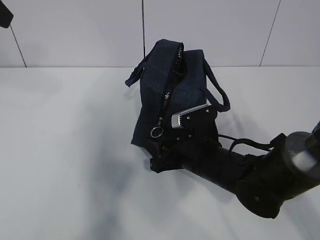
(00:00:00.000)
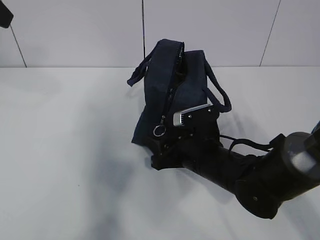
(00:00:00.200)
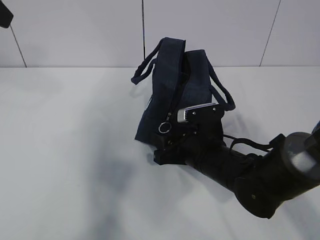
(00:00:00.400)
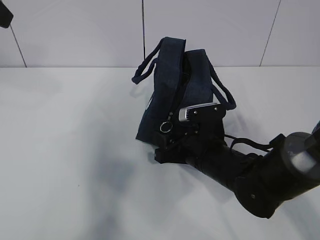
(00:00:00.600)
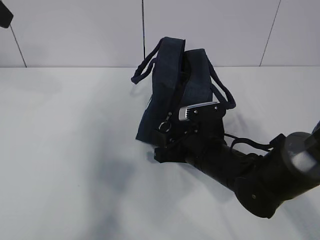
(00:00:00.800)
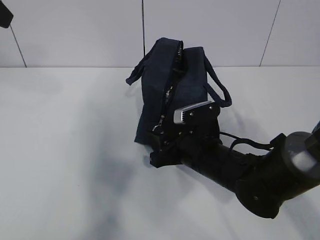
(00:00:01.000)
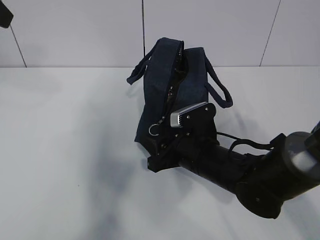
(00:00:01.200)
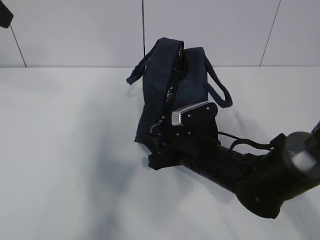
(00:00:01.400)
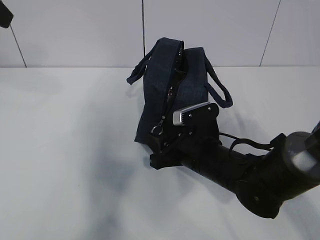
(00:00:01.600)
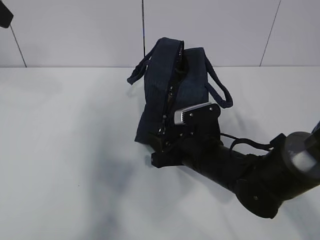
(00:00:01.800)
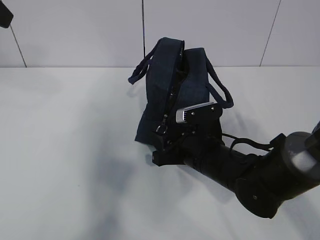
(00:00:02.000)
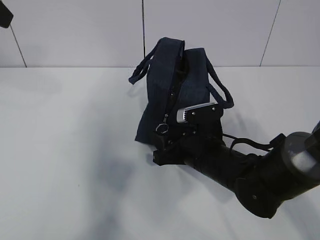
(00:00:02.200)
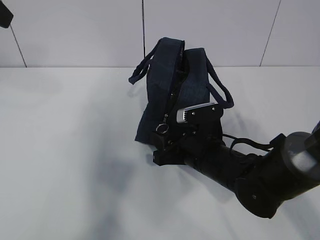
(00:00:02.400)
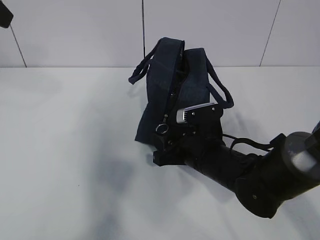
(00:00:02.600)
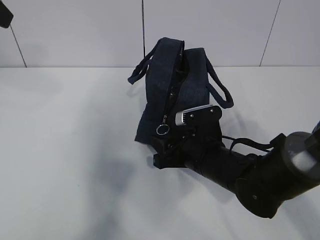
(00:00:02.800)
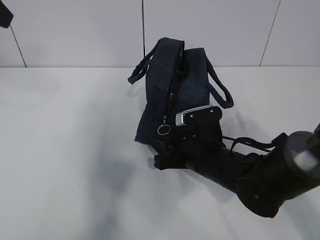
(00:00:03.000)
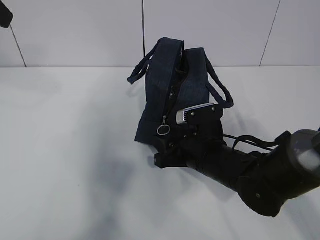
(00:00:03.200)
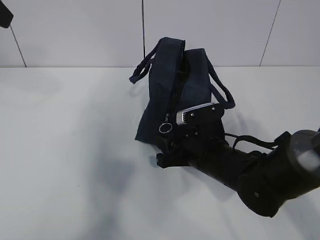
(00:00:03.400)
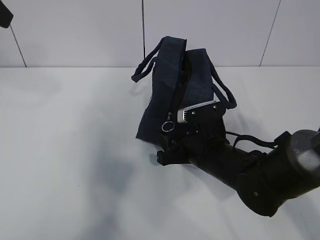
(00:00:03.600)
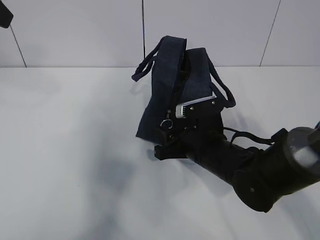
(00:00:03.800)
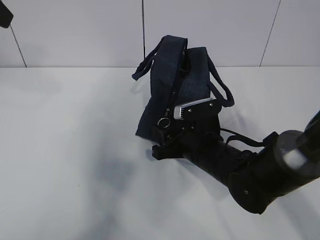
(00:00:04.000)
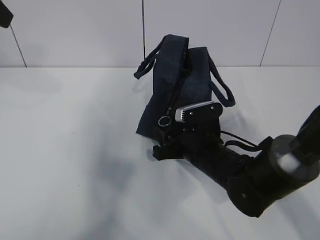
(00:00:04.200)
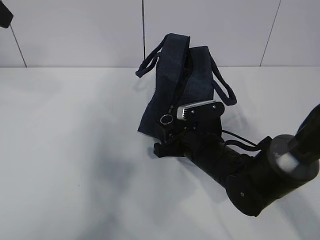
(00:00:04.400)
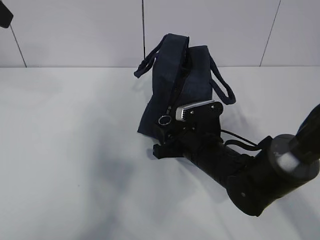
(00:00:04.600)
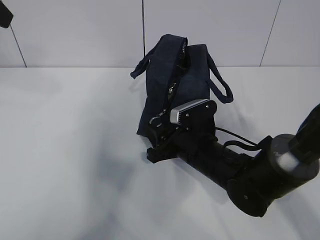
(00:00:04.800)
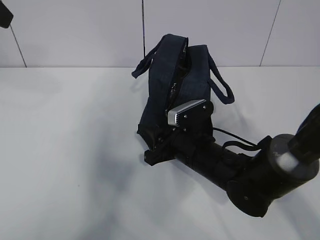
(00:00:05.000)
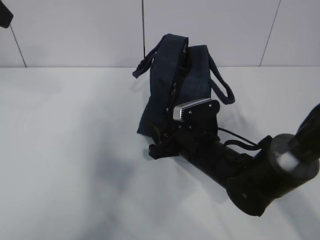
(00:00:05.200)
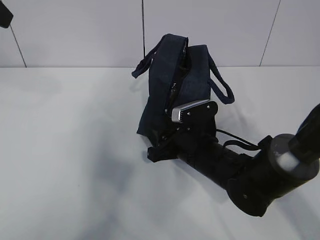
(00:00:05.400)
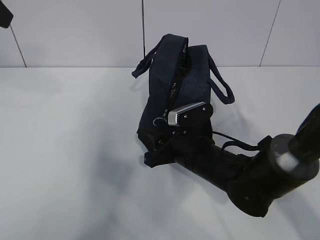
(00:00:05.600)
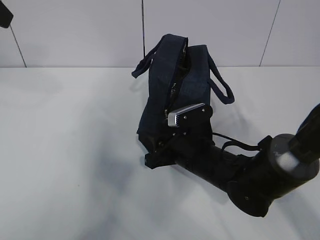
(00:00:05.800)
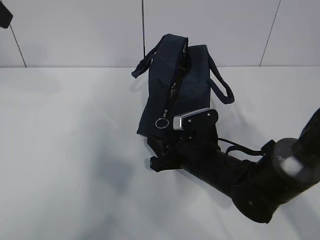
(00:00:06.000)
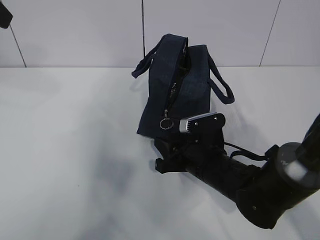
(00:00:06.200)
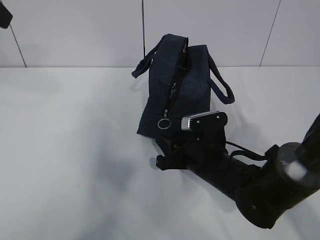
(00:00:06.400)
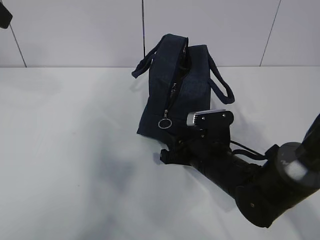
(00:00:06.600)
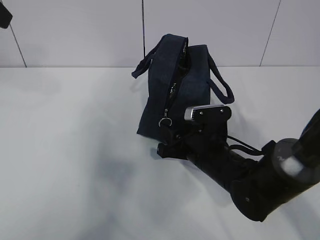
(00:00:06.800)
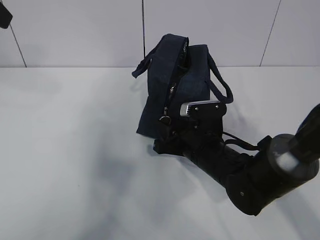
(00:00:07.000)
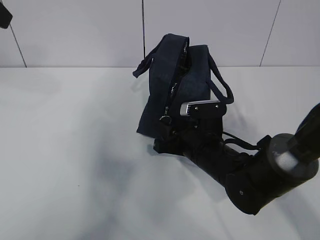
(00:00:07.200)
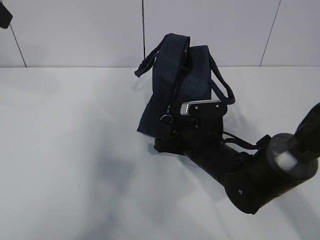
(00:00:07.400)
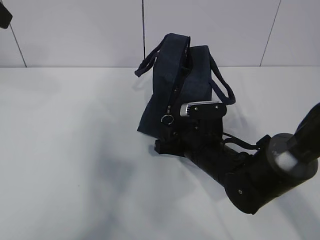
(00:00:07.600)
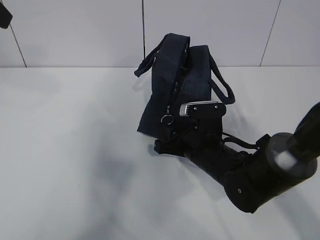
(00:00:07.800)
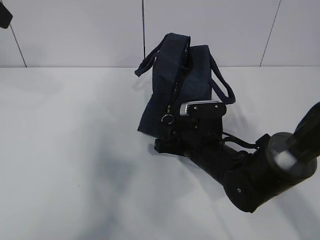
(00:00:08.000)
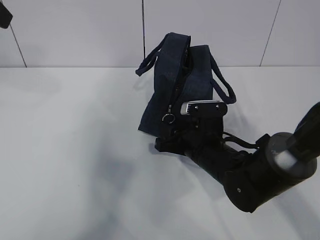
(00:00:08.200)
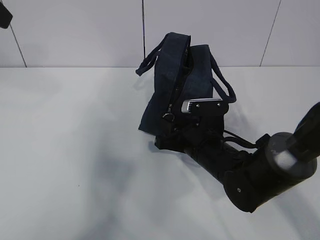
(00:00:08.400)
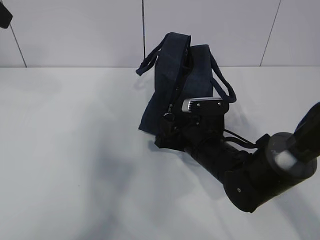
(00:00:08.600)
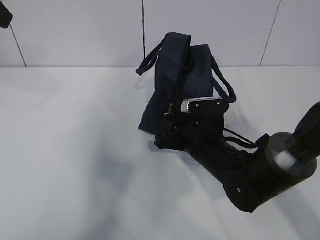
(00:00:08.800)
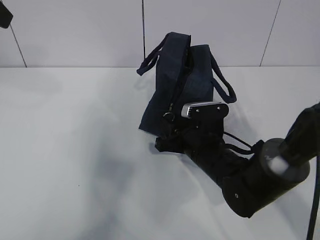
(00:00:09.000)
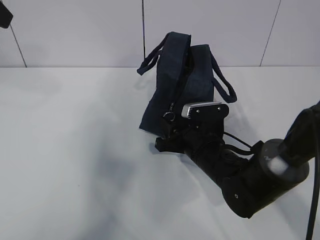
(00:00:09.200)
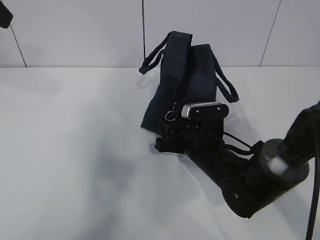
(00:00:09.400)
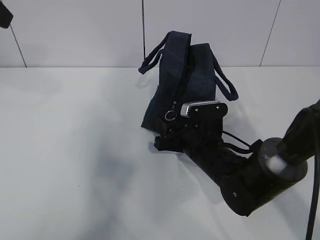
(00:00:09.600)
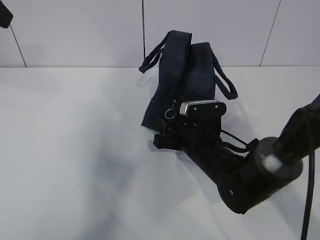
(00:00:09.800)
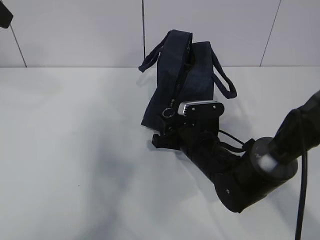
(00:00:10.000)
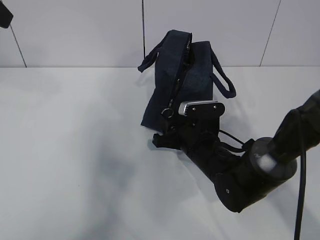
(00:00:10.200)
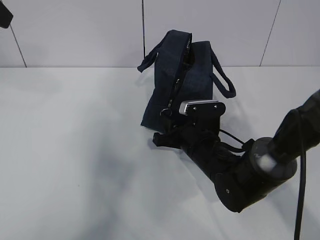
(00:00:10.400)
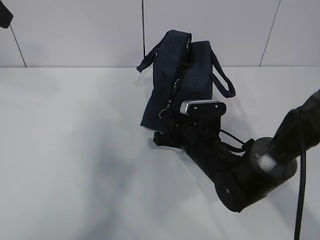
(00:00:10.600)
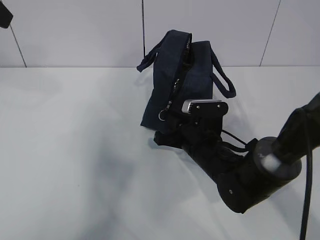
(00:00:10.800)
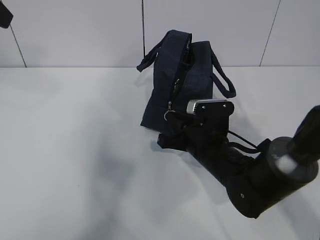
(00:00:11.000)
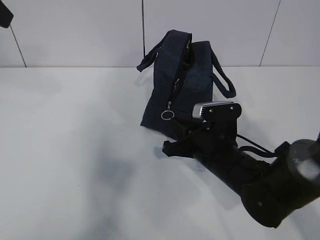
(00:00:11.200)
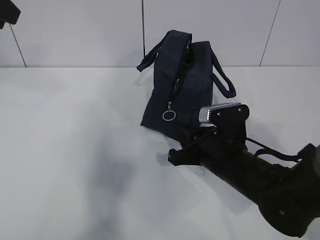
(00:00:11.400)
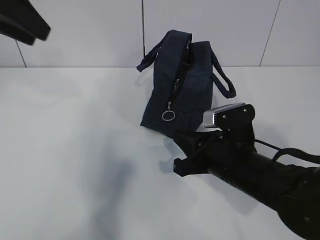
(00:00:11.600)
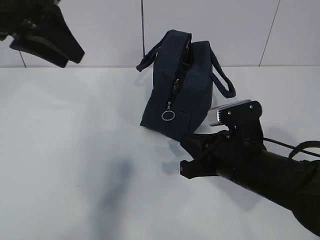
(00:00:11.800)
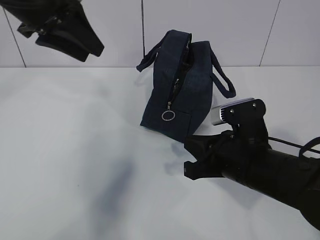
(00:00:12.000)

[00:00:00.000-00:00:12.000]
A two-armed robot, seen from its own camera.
00:00:00.000 to 00:00:10.400: The grippers move only a little.
00:00:10.400 to 00:00:12.000: The right gripper moves backward and upward, roughly 10 cm, and closes up, while the left gripper goes some 10 cm to the right, downward and forward.

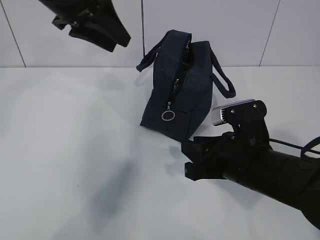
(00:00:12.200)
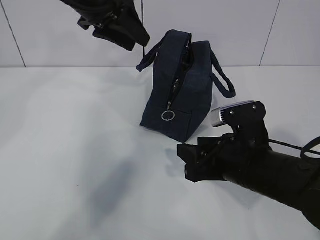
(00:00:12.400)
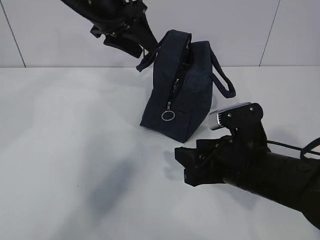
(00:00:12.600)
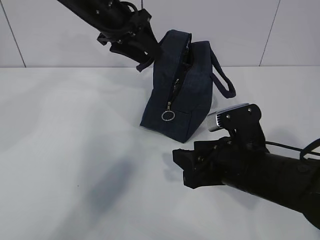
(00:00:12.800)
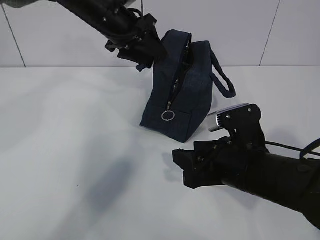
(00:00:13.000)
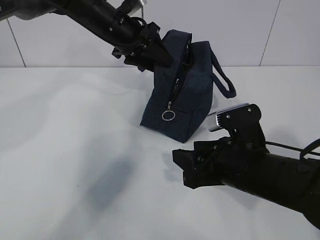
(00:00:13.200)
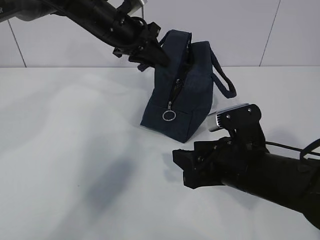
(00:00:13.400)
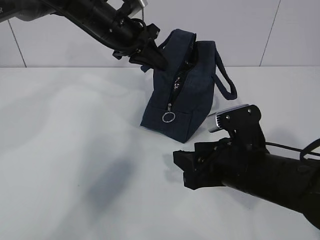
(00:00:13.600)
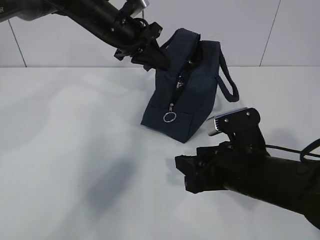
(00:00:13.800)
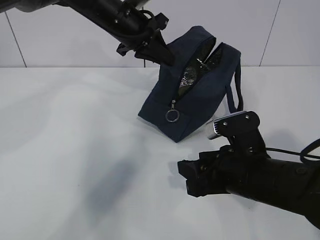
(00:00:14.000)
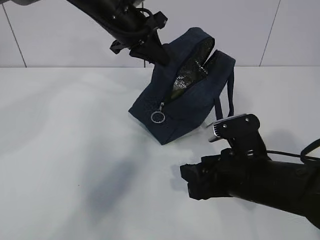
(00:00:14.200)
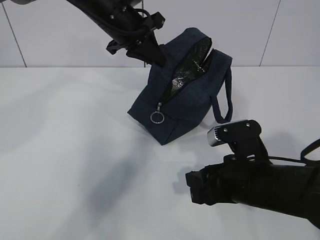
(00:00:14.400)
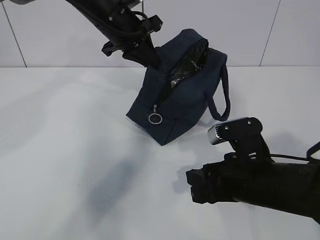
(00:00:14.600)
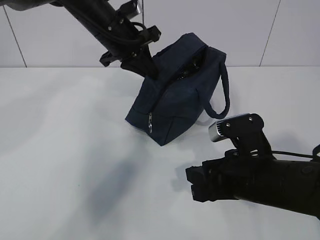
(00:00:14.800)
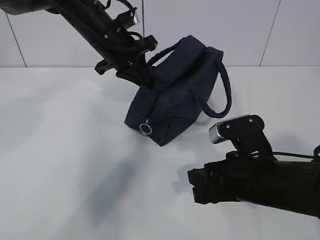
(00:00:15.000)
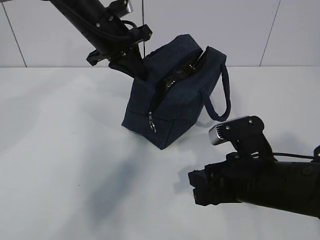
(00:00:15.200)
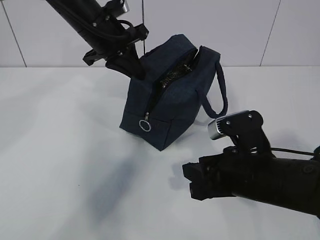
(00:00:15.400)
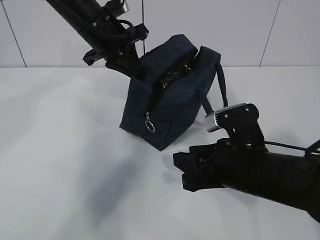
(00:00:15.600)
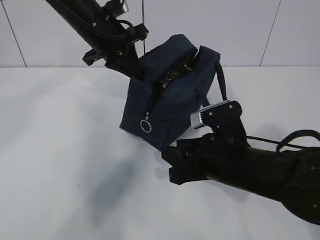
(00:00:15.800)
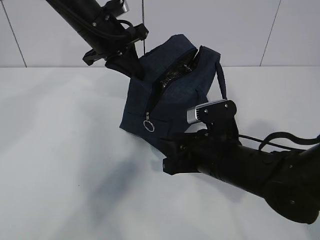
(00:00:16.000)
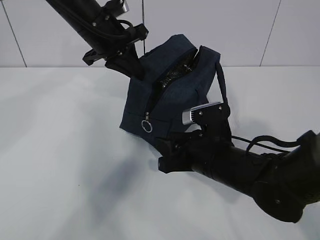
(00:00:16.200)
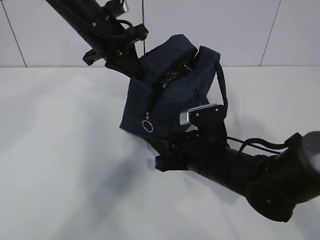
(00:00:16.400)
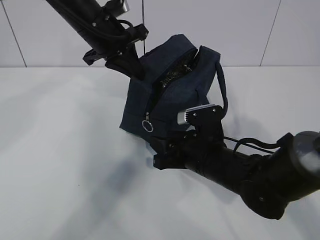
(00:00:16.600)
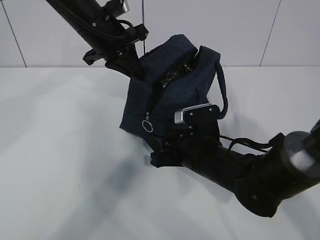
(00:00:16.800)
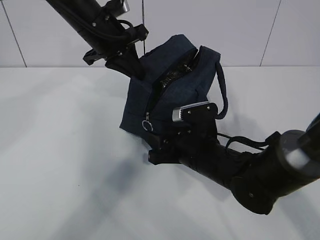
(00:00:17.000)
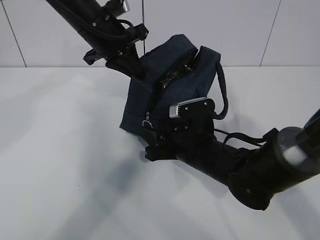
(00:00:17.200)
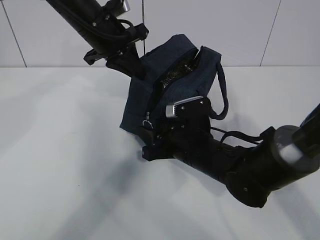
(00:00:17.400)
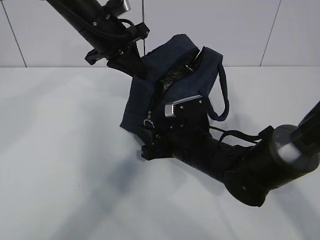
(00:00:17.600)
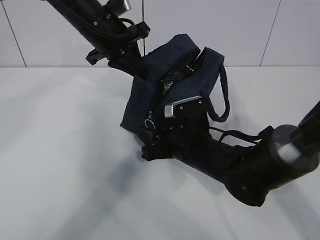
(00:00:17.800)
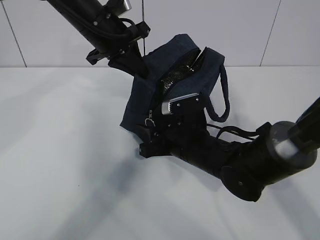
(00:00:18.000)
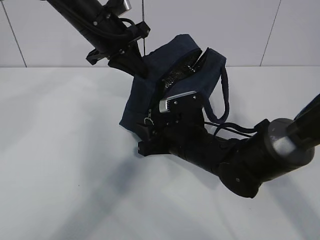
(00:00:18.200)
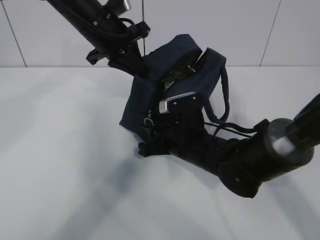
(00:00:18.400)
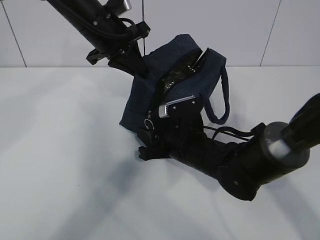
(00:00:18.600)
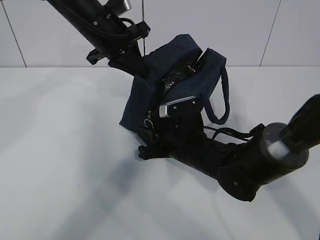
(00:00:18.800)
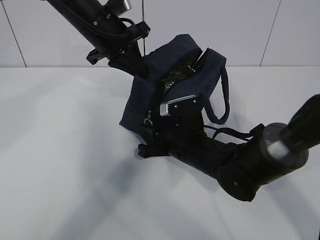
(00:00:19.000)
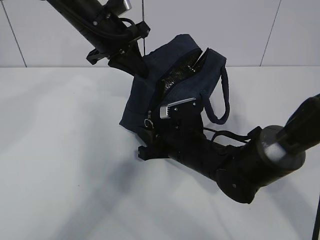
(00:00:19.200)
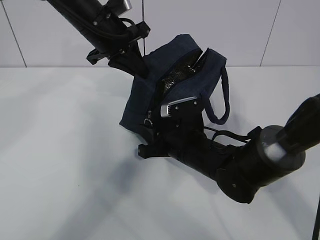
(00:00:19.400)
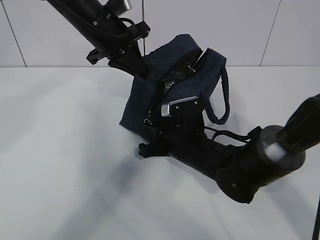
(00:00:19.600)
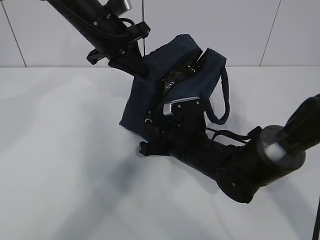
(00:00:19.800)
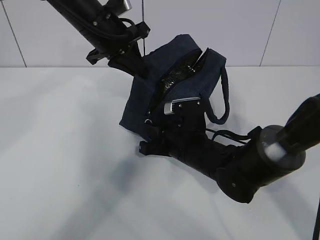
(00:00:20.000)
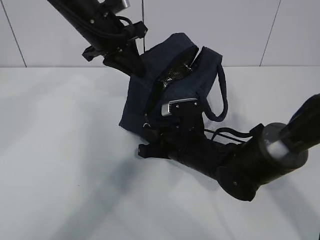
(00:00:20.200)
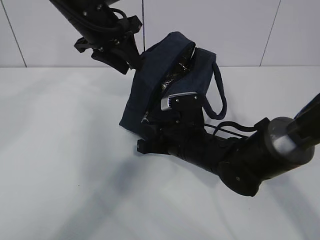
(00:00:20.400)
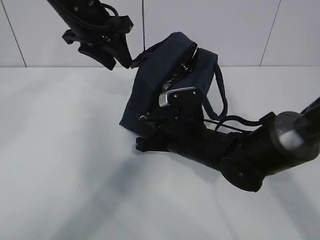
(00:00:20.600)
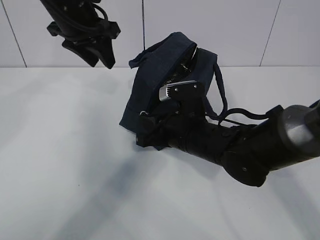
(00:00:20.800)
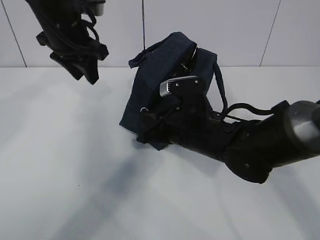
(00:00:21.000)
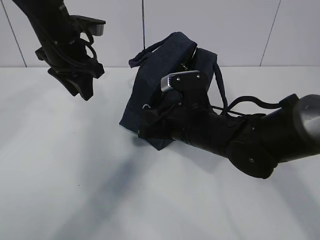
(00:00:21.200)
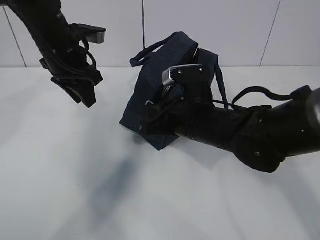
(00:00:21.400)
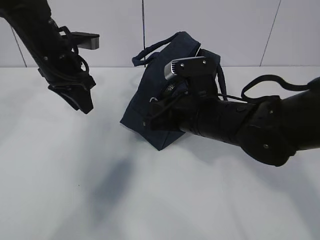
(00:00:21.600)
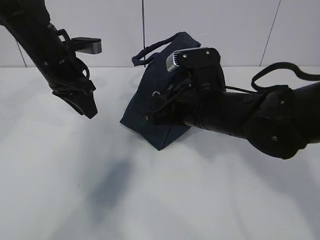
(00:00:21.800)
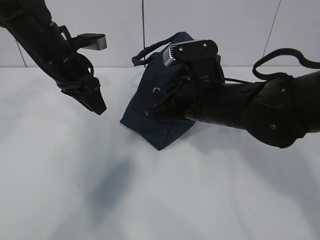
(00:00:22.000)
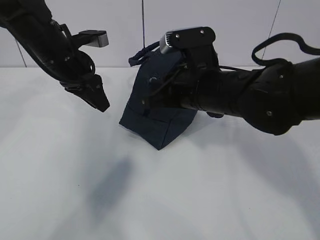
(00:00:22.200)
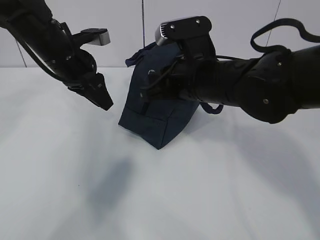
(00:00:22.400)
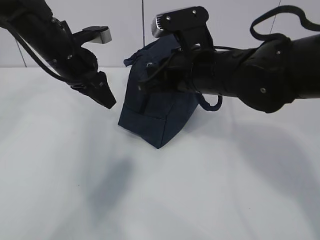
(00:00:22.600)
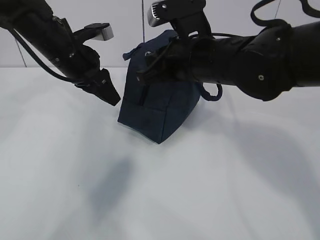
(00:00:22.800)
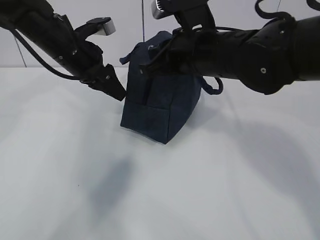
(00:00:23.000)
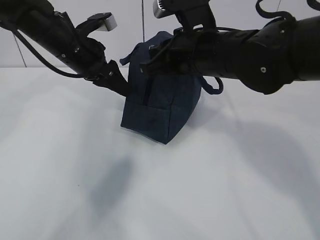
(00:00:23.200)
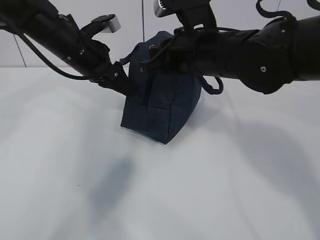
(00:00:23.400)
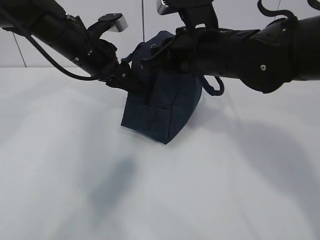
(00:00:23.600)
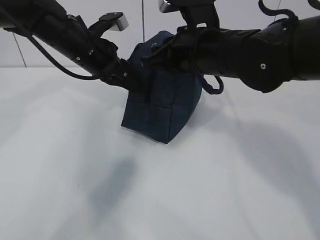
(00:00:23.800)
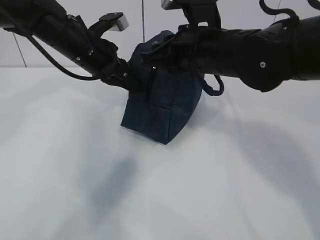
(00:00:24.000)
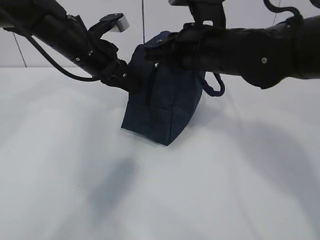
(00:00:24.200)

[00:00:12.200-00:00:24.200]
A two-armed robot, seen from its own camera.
Step, 00:00:14.000 to 00:00:17.800: Pull the zipper with your right hand.
00:00:12.200 to 00:00:13.800: The left gripper heads downward, forward and to the right, covering some 15 cm, and closes its fingers. Meanwhile the right gripper opens up.
00:00:13.800 to 00:00:15.200: The grippers move only a little.
00:00:15.200 to 00:00:16.600: The right gripper shifts roughly 5 cm forward.
00:00:16.600 to 00:00:18.200: The grippers stay close to where they were, moving slightly.
00:00:18.200 to 00:00:19.800: The right gripper closes up.
00:00:19.800 to 00:00:21.200: The left gripper shifts some 5 cm to the left, and opens, while the right gripper travels upward by some 5 cm.
00:00:21.200 to 00:00:22.600: The right gripper heads upward, covering approximately 10 cm.
00:00:22.600 to 00:00:24.200: The left gripper closes.
